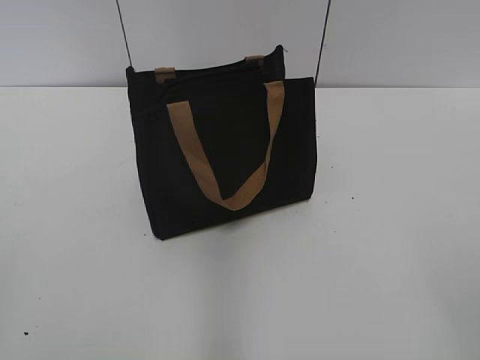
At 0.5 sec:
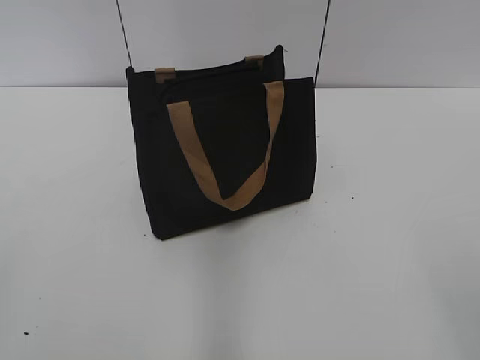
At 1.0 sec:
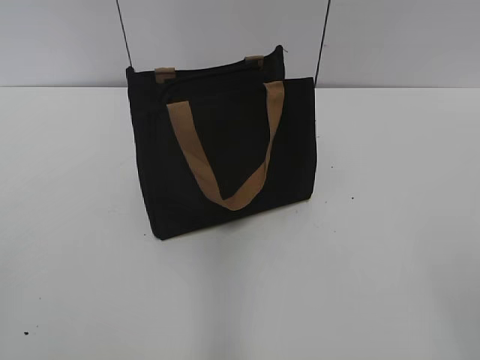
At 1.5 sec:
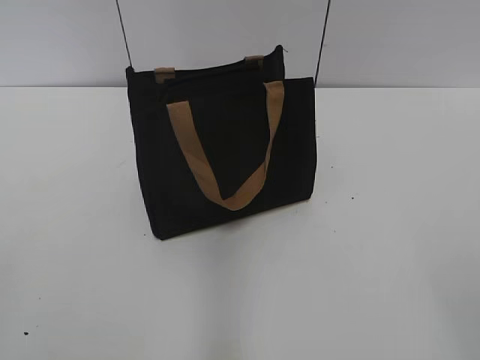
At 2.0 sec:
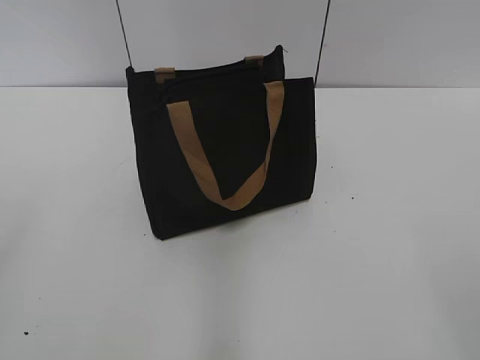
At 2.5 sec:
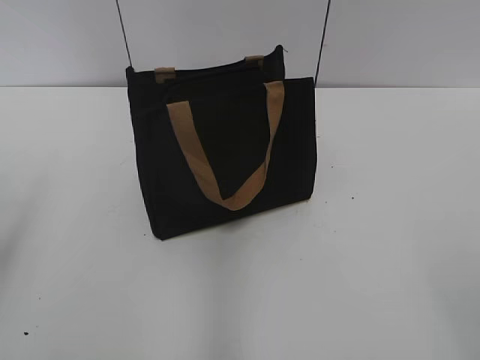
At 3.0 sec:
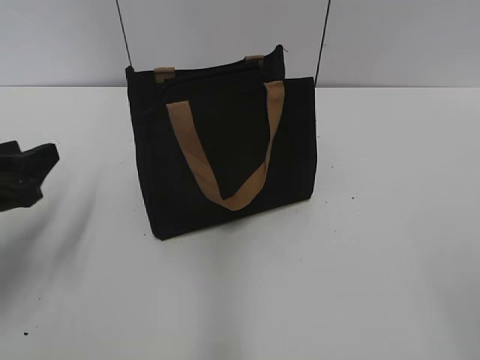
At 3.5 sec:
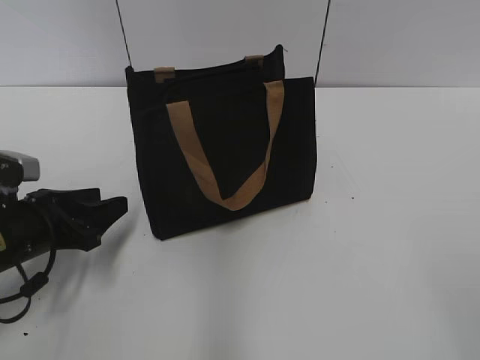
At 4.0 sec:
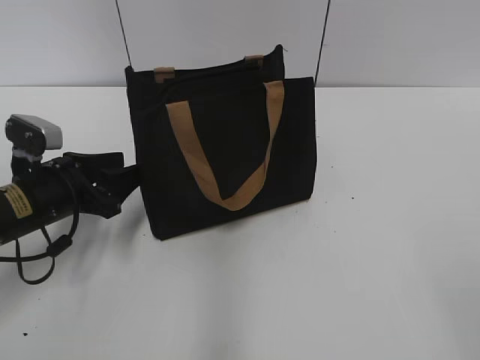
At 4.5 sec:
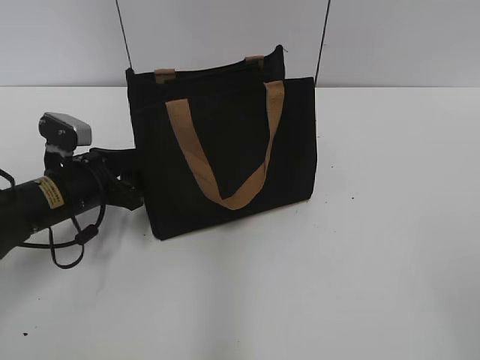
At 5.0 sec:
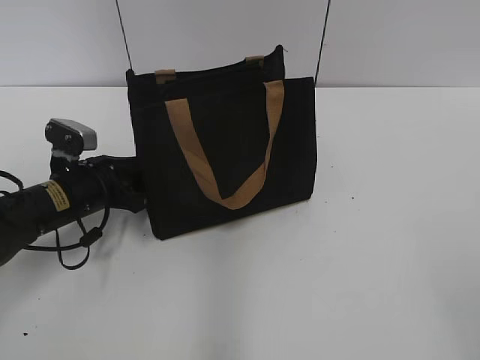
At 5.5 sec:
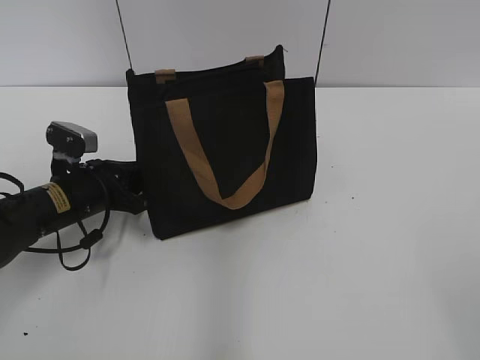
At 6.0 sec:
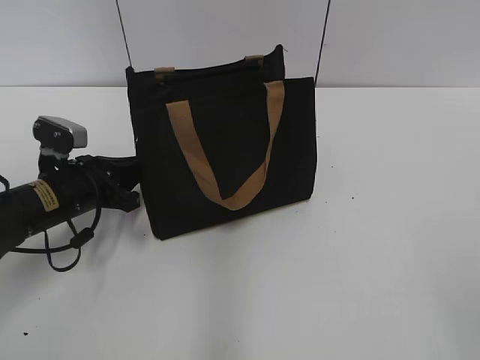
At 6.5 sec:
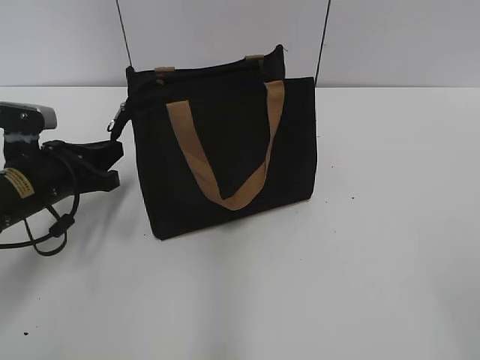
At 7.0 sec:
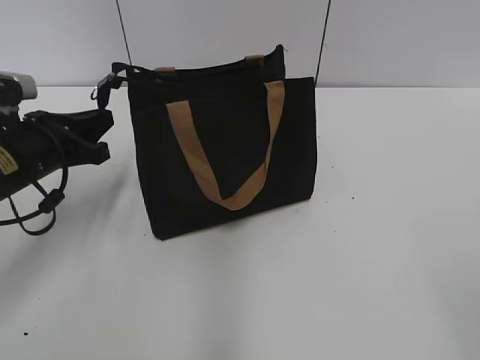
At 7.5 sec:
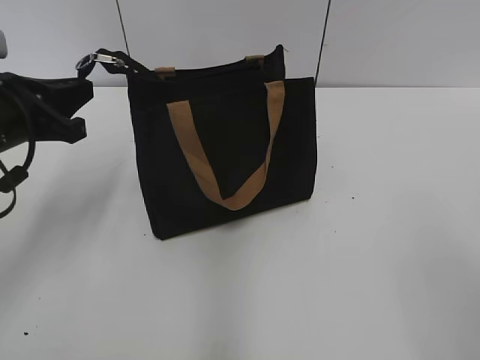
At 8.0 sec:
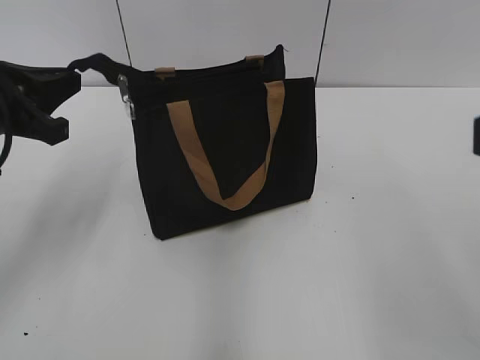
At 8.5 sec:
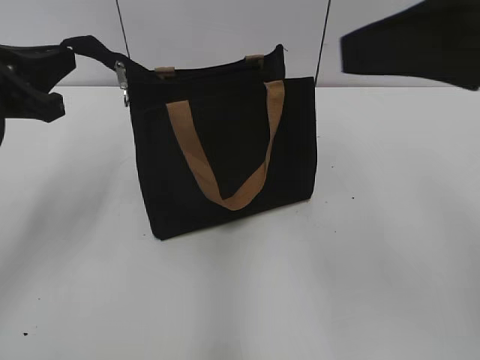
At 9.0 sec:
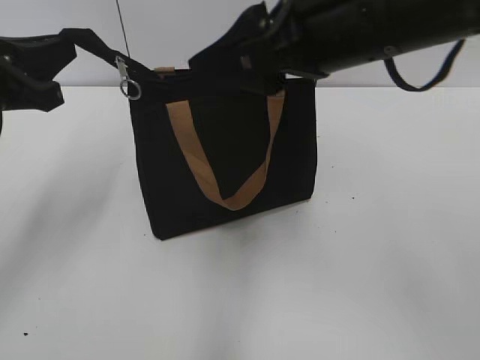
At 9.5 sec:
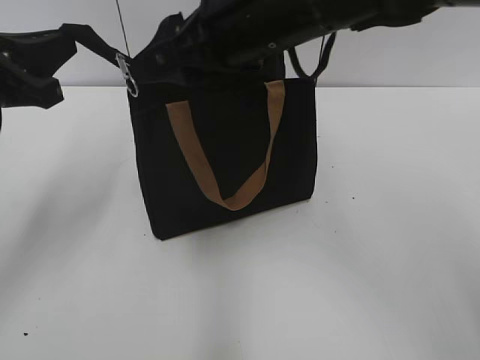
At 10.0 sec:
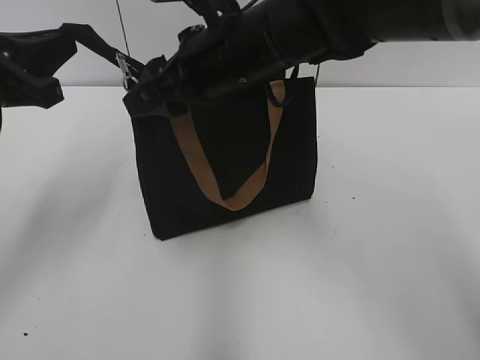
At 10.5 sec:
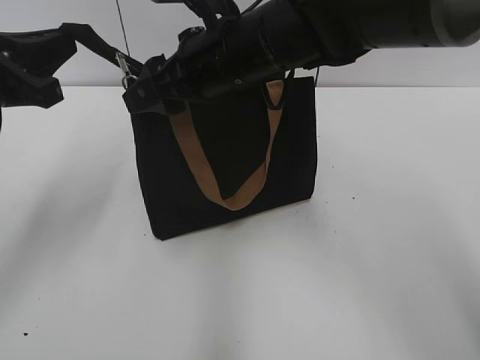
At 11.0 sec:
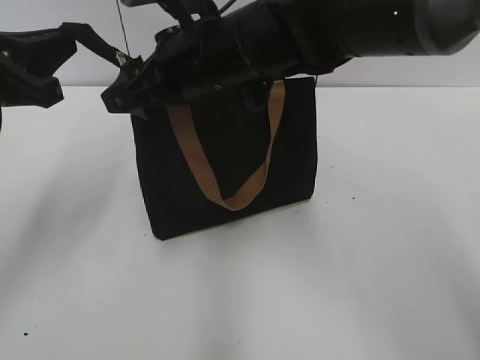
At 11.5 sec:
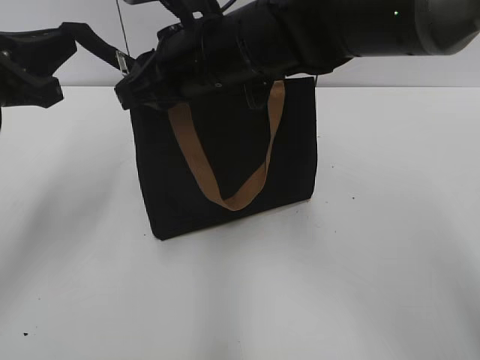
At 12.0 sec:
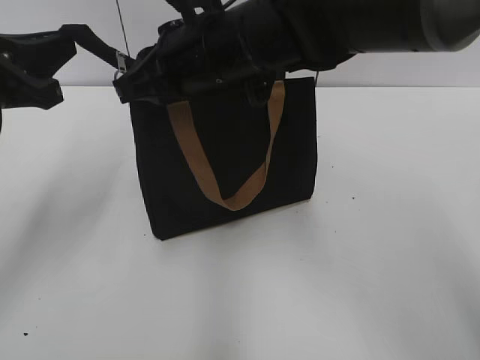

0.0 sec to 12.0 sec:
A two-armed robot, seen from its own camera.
2.0 sec to 4.0 sec: The left gripper goes approximately 35 cm forward and downward.
4.0 sec to 6.0 sec: The left gripper closes its fingers.
6.0 sec to 8.0 sec: The left gripper heads upward, covering about 15 cm.
8.0 sec to 10.0 sec: The right gripper heads forward, to the left and downward, covering roughly 35 cm.
10.0 sec to 12.0 sec: The right gripper closes up.

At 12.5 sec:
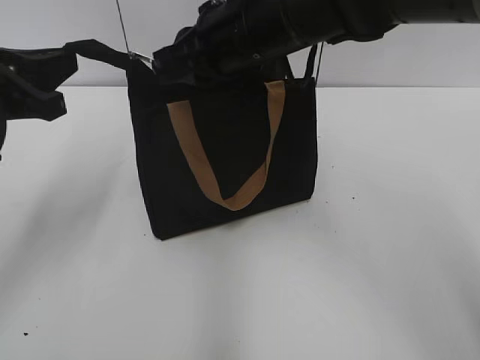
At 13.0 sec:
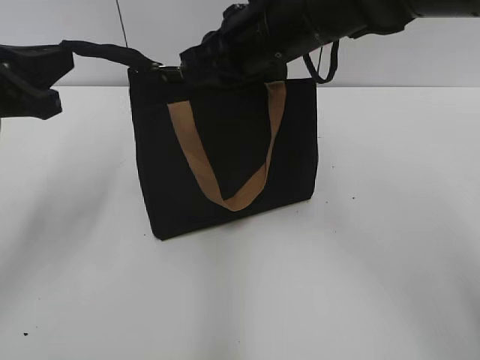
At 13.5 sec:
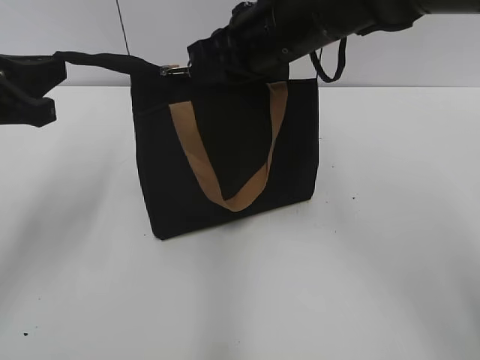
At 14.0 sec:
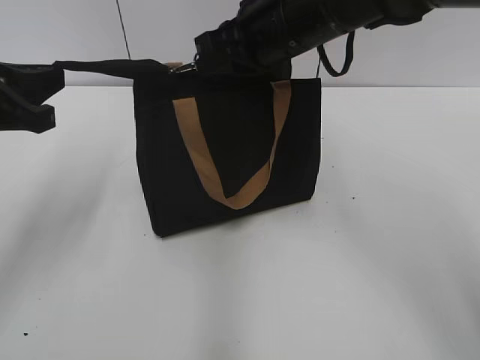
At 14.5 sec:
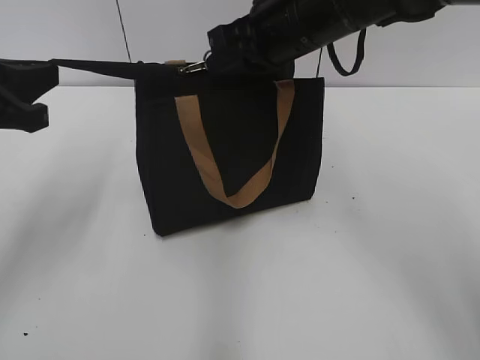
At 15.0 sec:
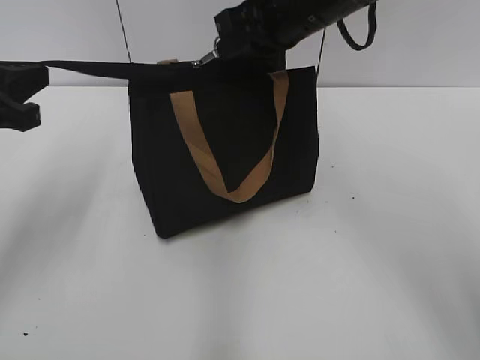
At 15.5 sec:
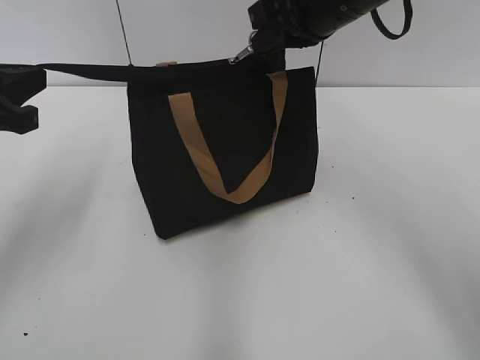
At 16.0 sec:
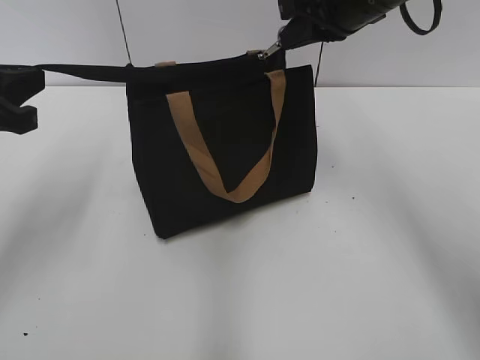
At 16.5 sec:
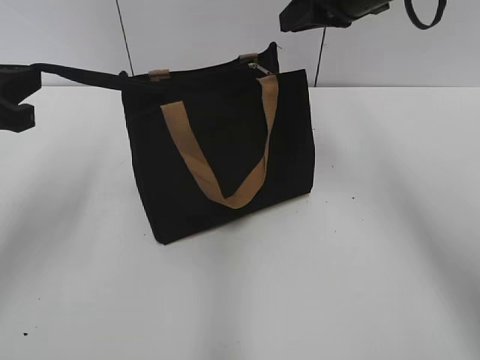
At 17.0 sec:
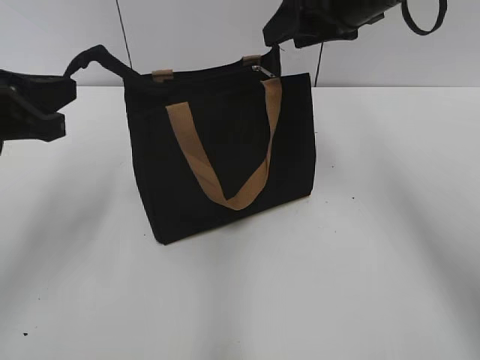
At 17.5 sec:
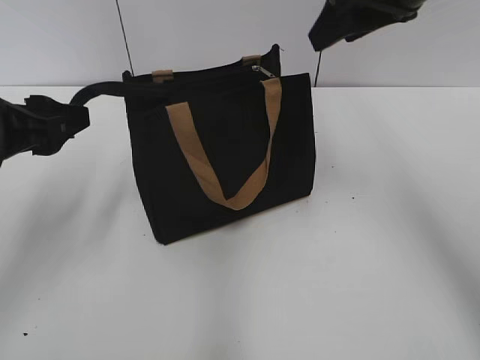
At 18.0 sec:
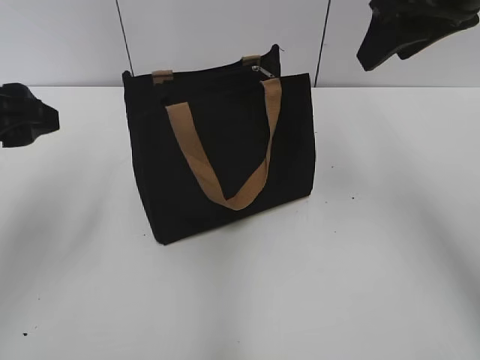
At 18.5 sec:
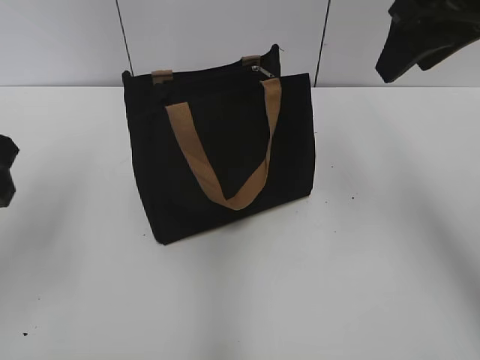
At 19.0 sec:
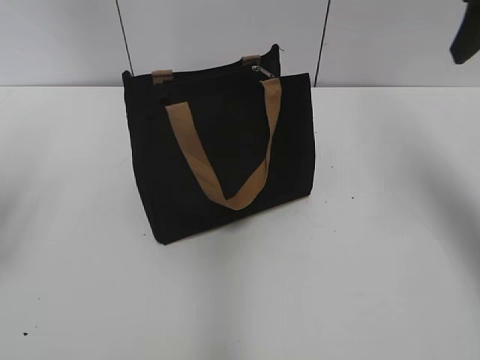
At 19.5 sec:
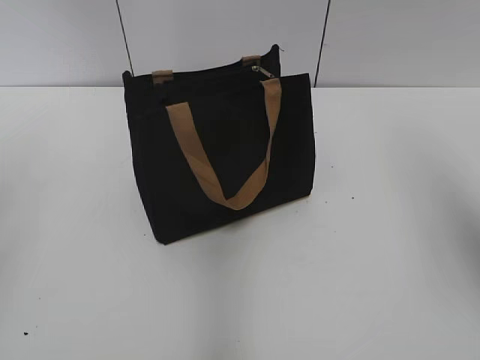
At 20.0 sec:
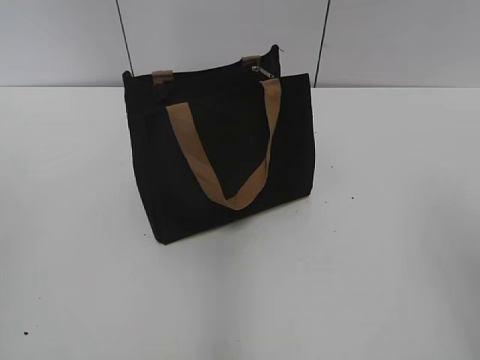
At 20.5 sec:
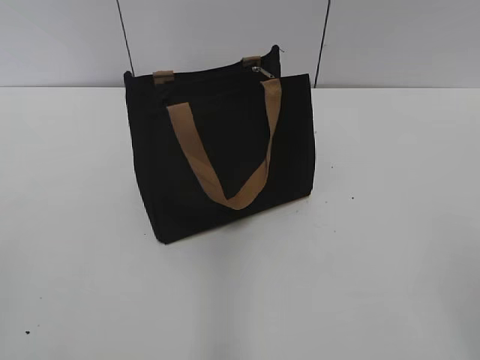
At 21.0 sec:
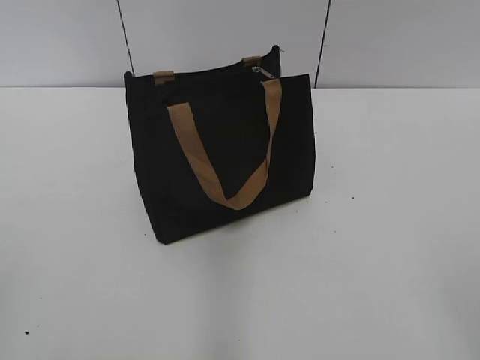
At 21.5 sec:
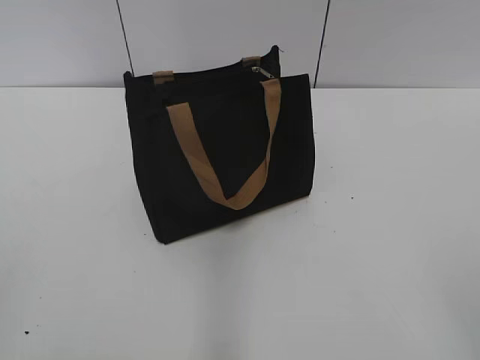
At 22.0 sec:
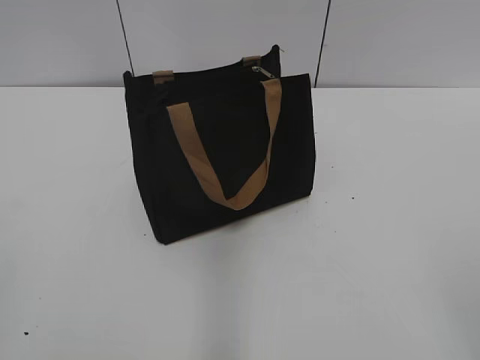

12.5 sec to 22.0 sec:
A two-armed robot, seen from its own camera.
Step, 12.5 sec to 16.0 sec: Zip up the bag with your right hand.
Step, 17.0 sec to 17.5 sec: Grab the zipper with your left hand.
12.5 sec to 14.5 sec: The right gripper heads to the right, covering approximately 5 cm.
14.5 sec to 16.5 sec: The right gripper travels to the right by about 5 cm.
16.5 sec to 18.0 sec: The right gripper travels backward by some 5 cm, and opens. Meanwhile the left gripper opens its fingers.
18.0 sec to 20.0 sec: The left gripper heads backward, upward and to the left, covering some 20 cm, while the right gripper heads backward and to the right, covering about 25 cm.
20.0 sec to 22.0 sec: The left gripper travels backward and downward by roughly 10 cm.
